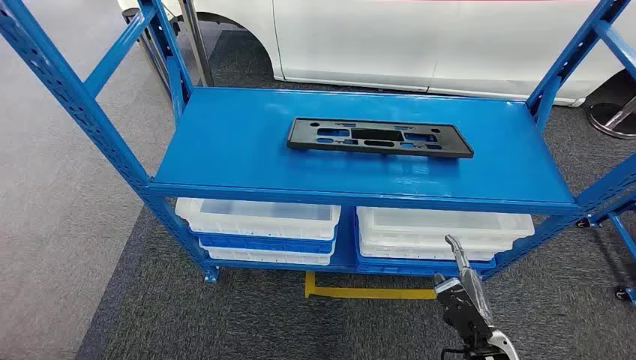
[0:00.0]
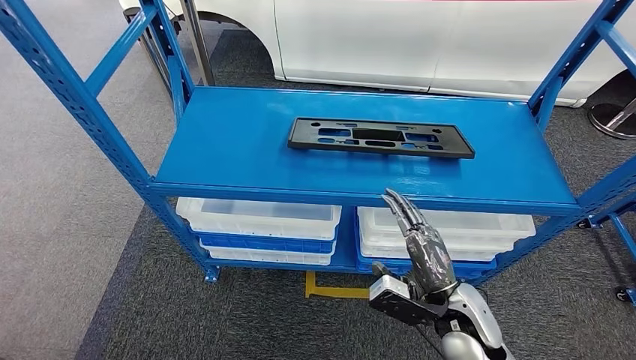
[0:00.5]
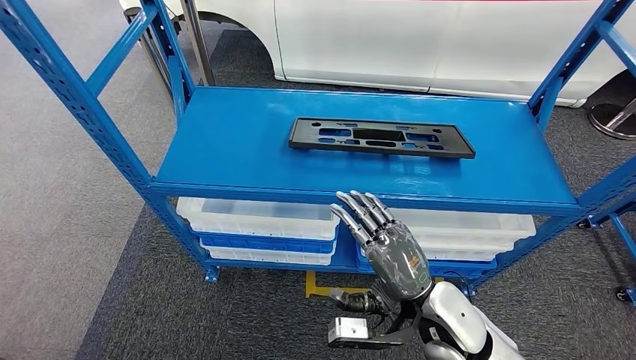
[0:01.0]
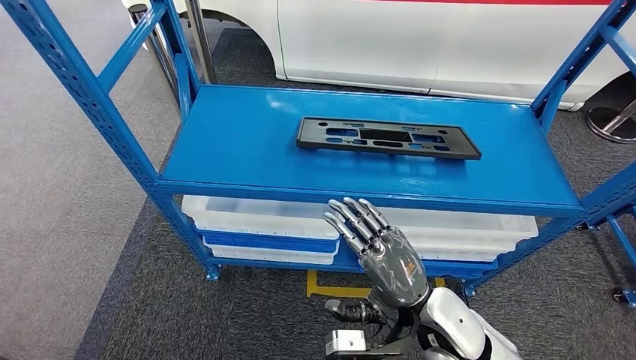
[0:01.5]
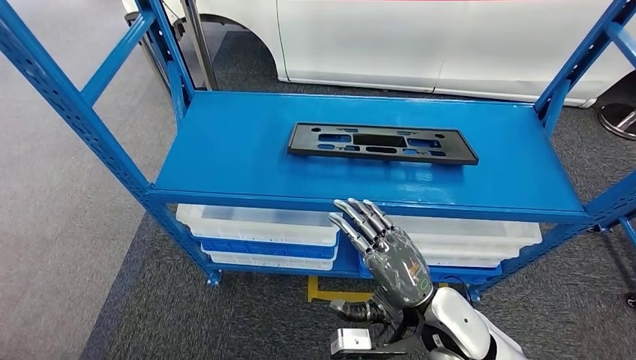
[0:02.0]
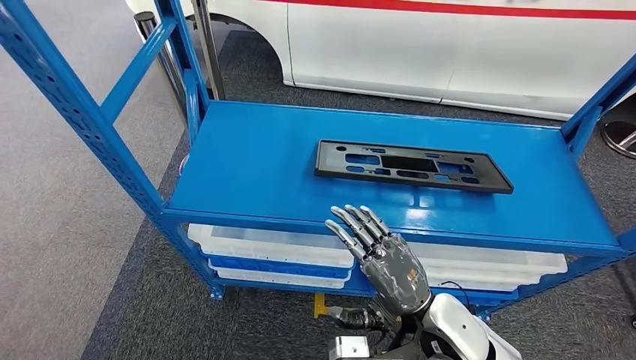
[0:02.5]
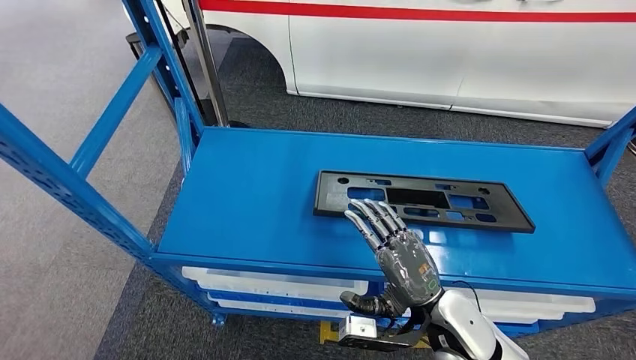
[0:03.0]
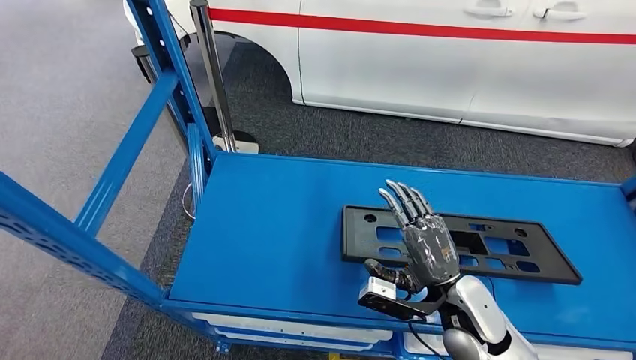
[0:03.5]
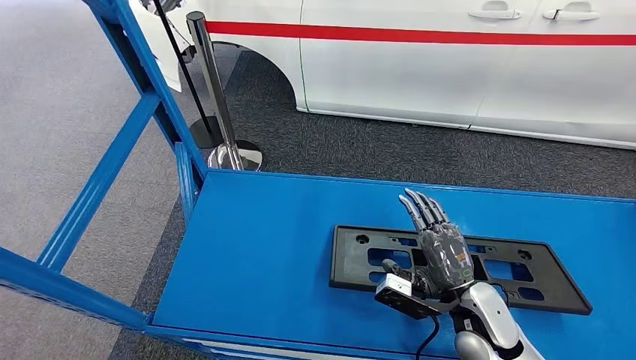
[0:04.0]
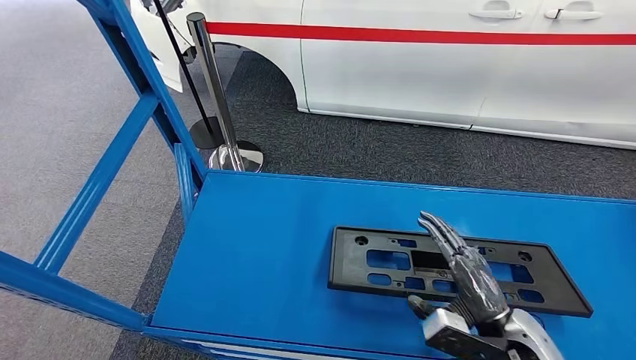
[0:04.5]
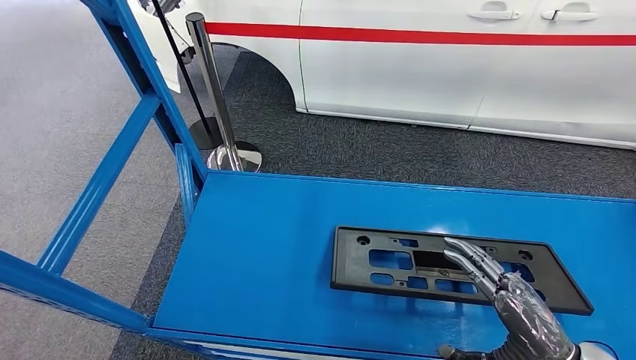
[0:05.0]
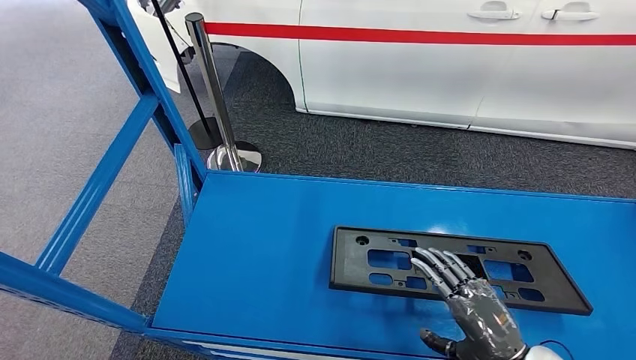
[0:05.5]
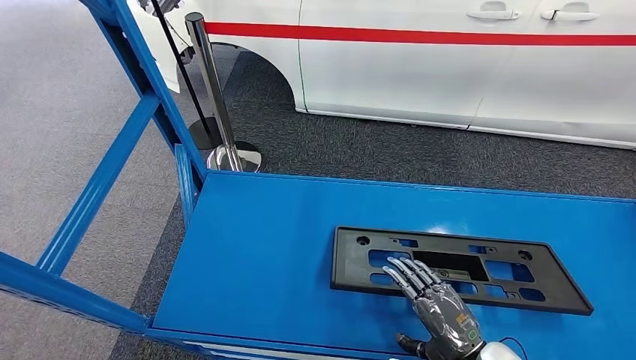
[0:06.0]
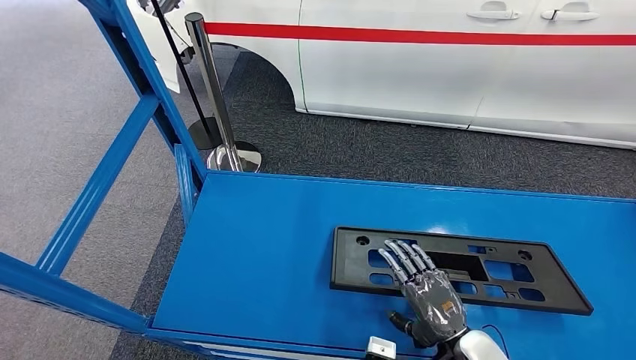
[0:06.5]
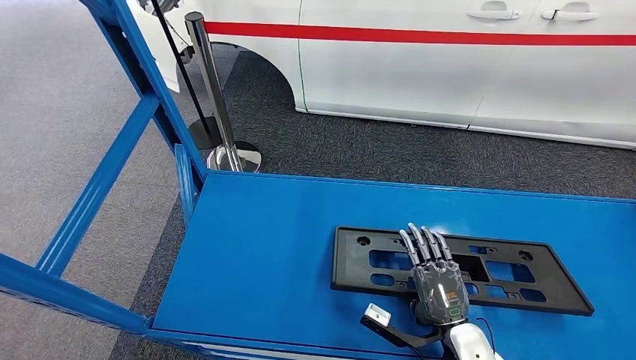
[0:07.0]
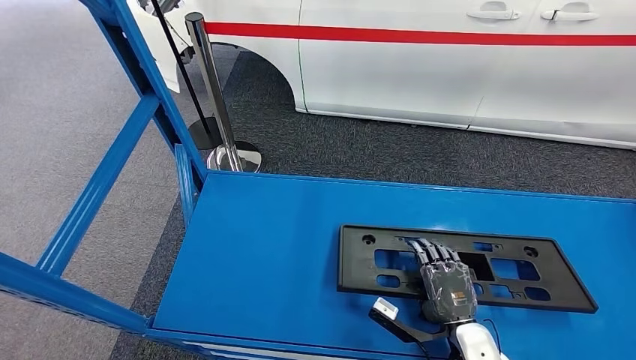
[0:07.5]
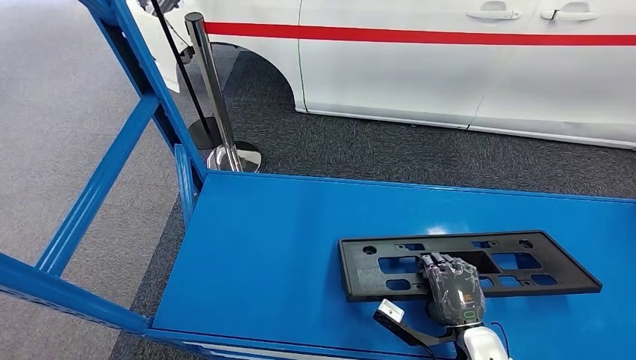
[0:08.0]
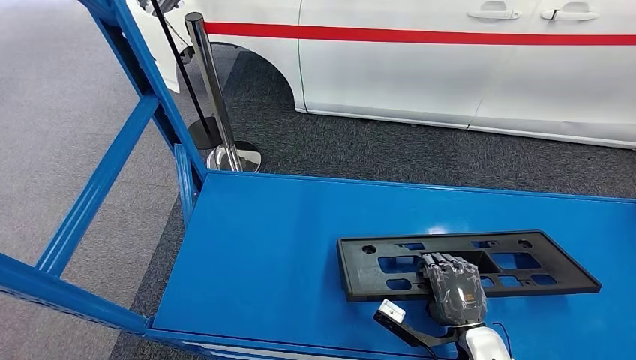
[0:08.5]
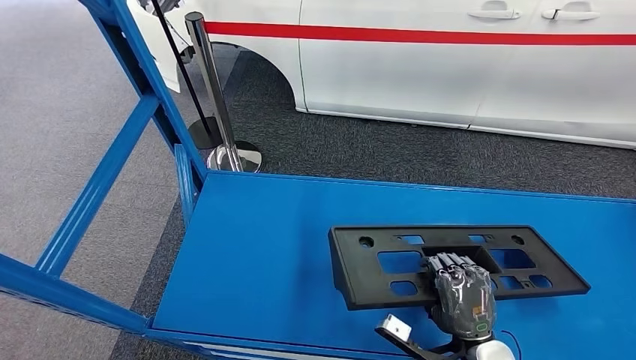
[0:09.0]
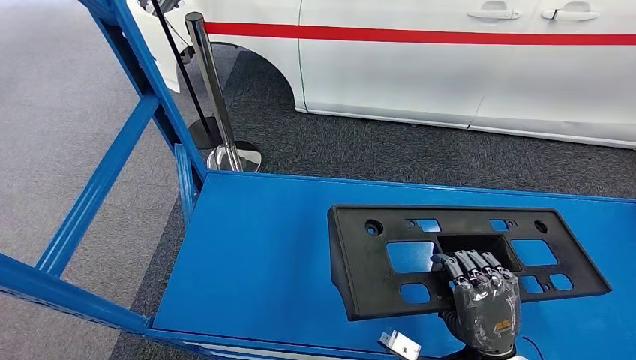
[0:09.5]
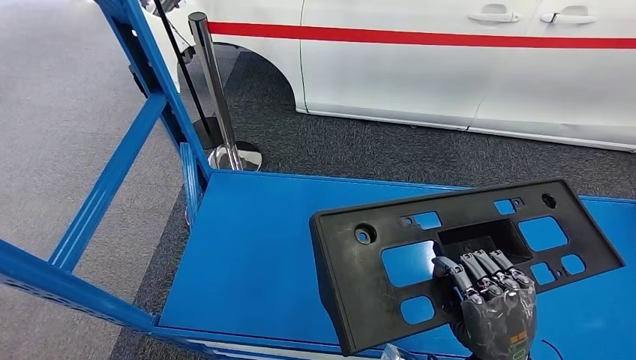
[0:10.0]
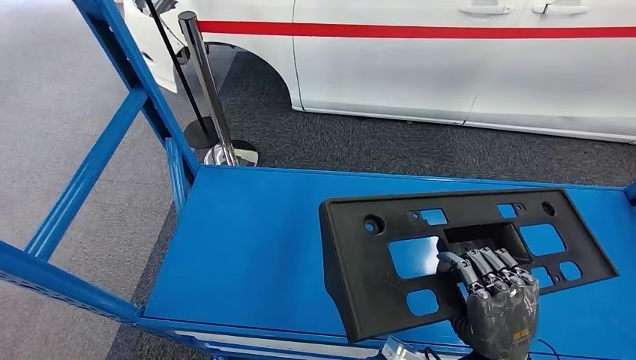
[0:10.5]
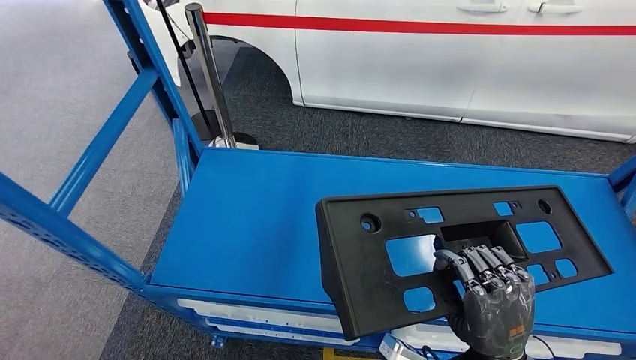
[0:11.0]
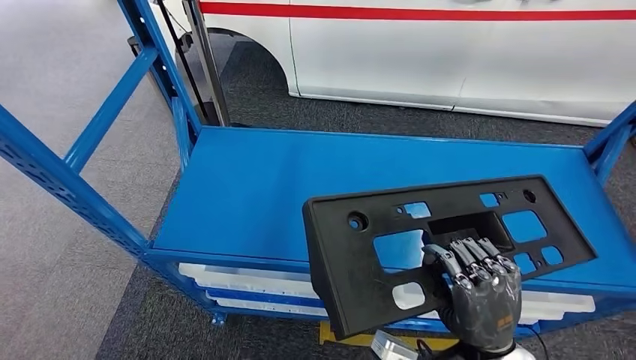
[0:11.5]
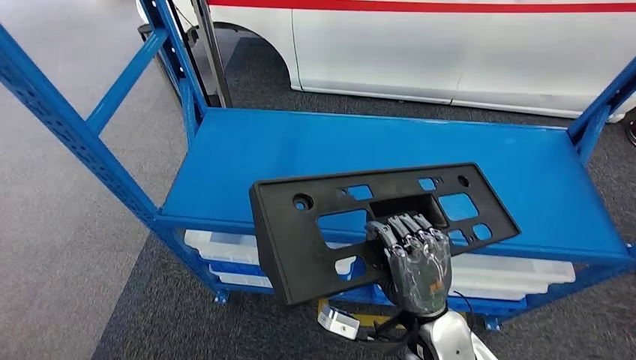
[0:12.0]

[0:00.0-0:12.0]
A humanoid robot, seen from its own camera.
Step, 0:00.0 to 0:09.5: Pick up the large material from the shelf.
0:04.0 to 0:06.0: The right hand goes some 10 cm backward.
0:06.0 to 0:08.0: The right hand ends up approximately 5 cm from where it was.

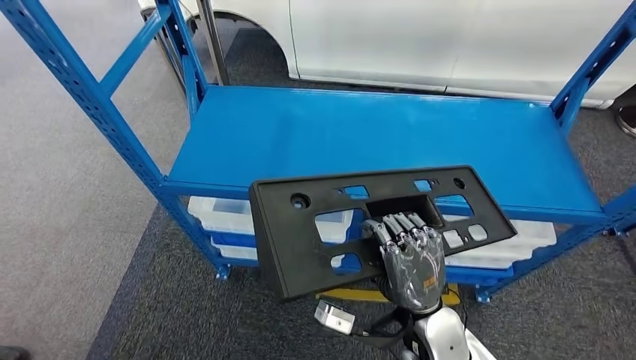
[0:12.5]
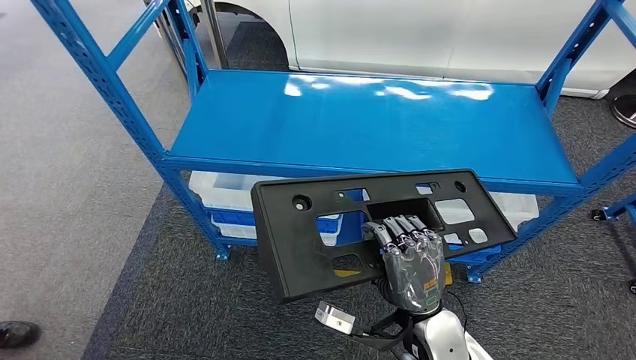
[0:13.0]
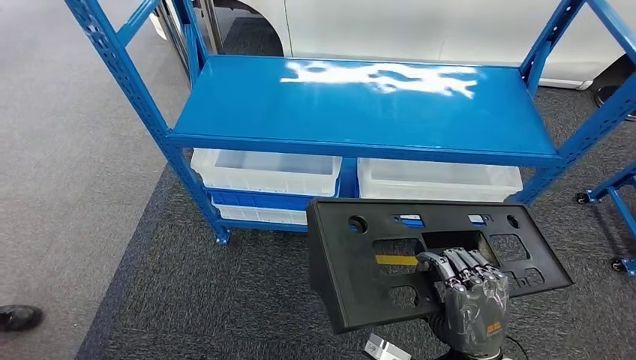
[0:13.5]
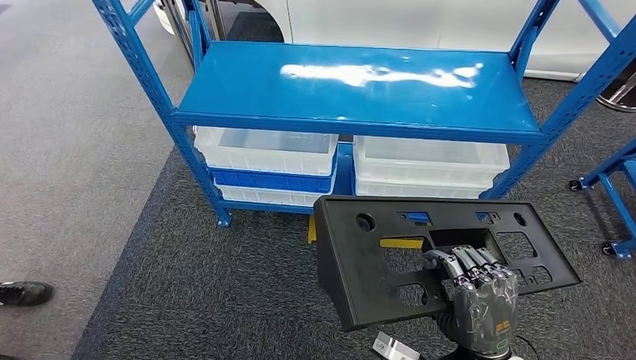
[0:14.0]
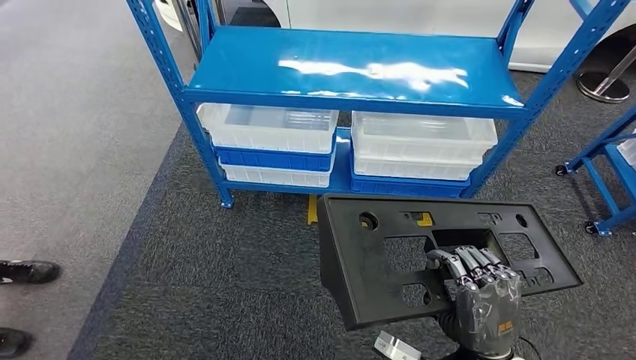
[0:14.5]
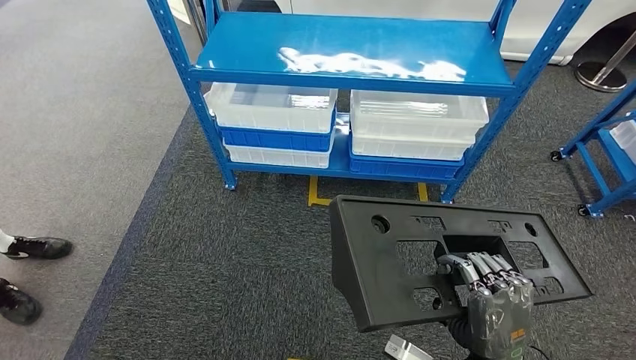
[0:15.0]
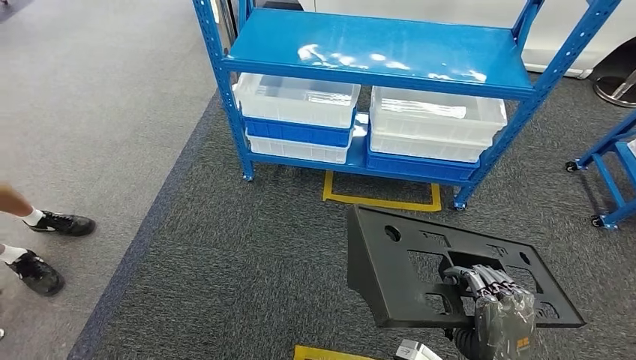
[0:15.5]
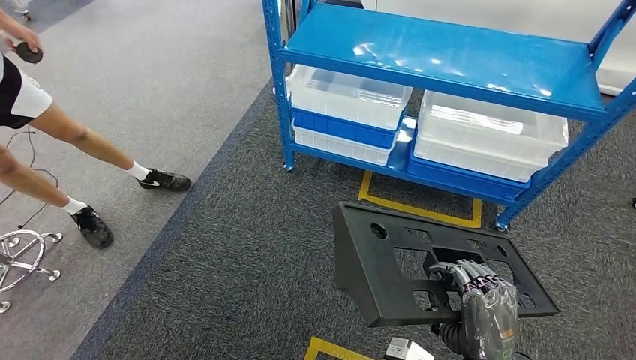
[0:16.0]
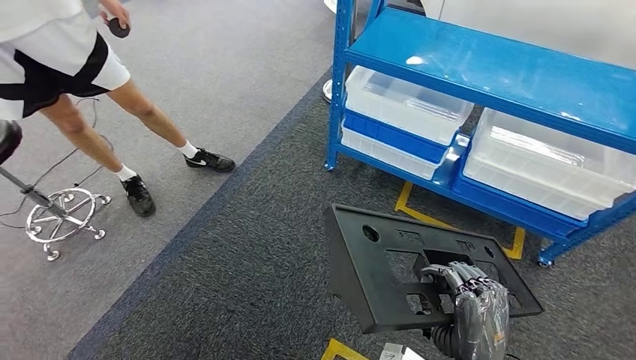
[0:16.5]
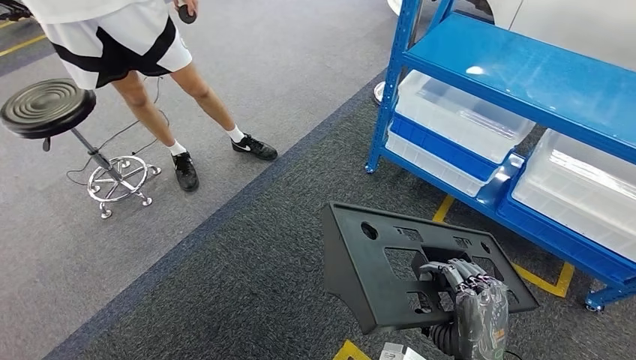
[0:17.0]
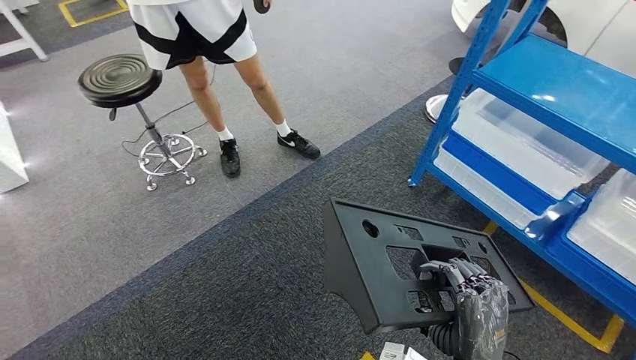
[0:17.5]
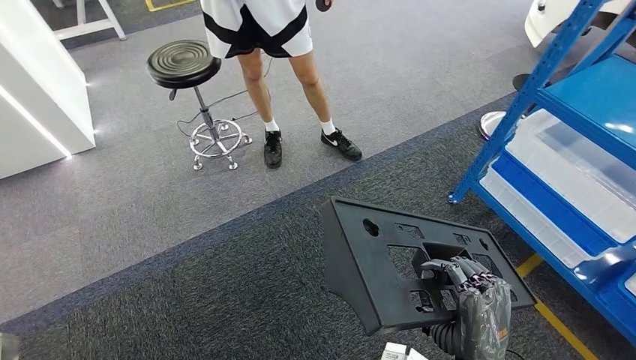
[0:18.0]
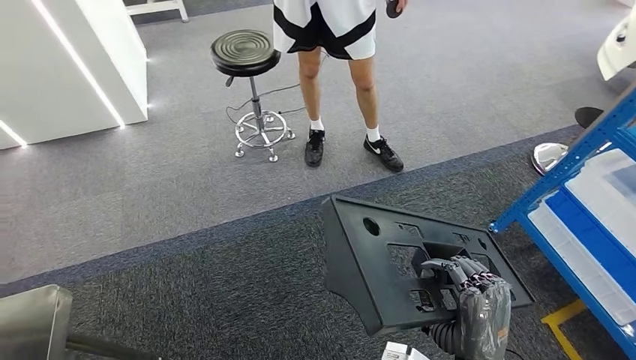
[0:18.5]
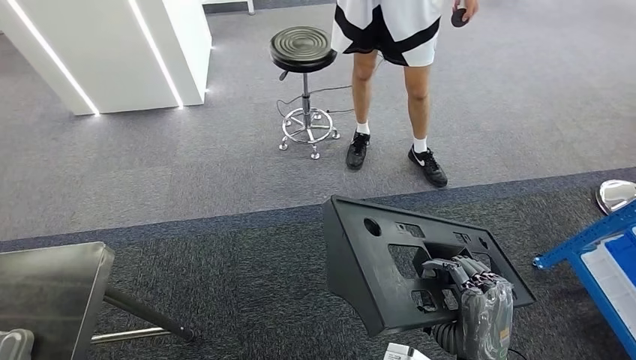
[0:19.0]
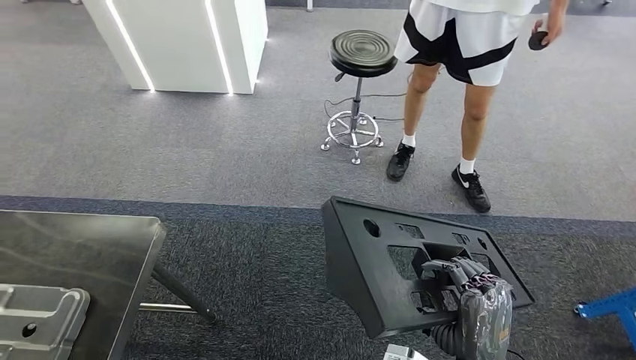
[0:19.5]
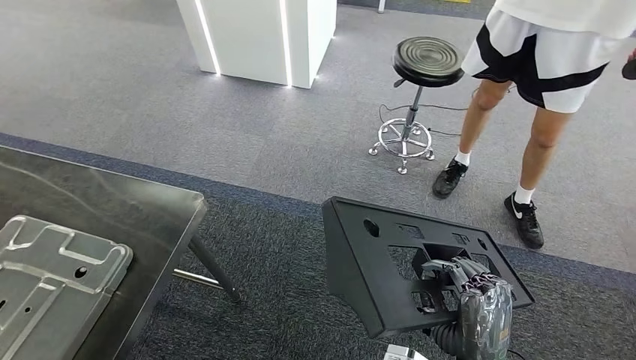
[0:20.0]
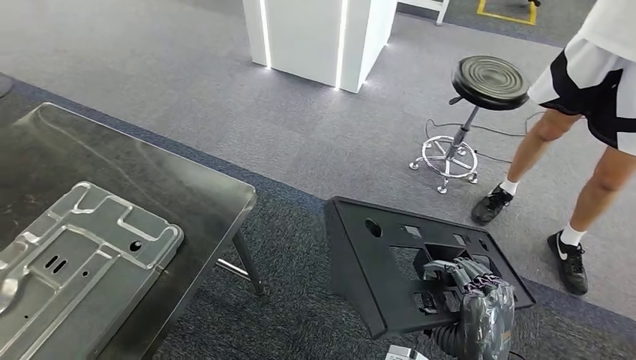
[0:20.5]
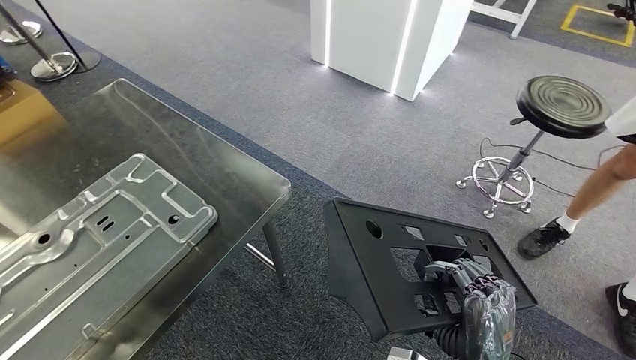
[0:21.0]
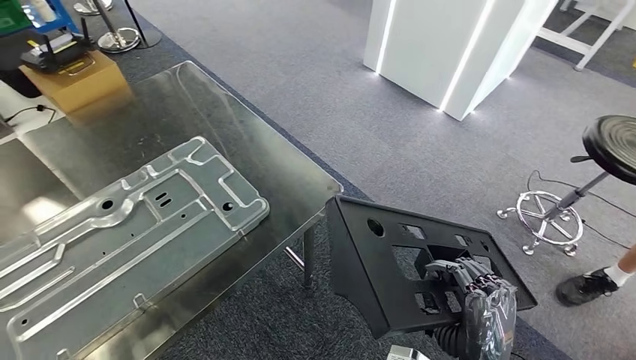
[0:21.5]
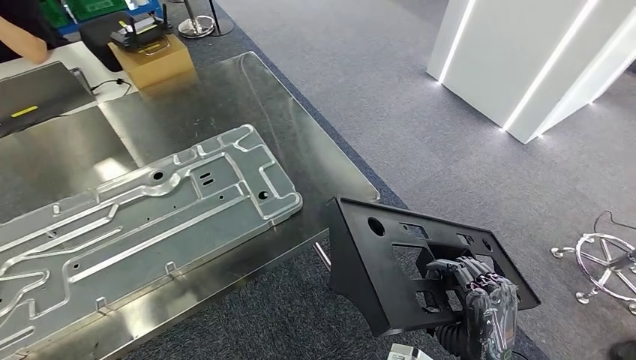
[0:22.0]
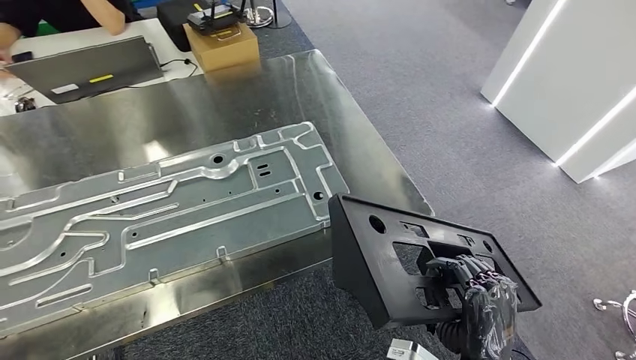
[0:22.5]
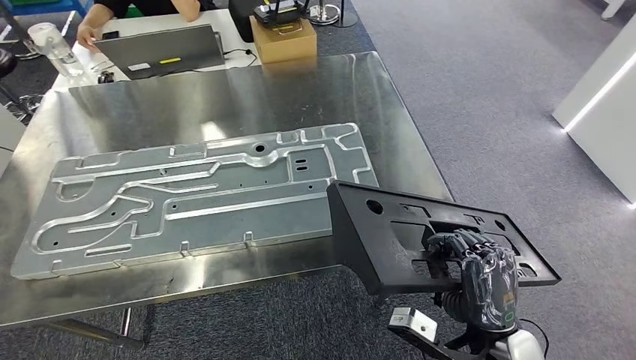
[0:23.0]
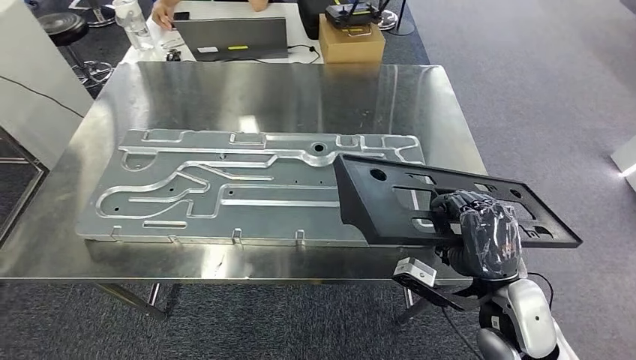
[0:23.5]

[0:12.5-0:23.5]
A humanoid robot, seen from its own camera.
Step, 0:12.5 to 0:22.5: Move the large material to the workbench.
